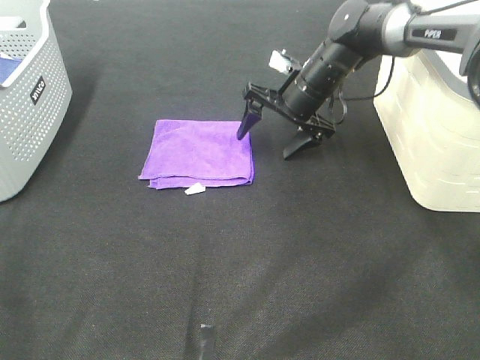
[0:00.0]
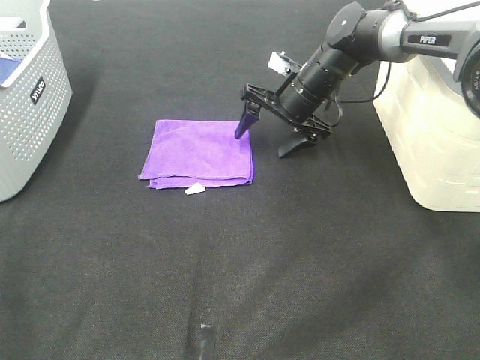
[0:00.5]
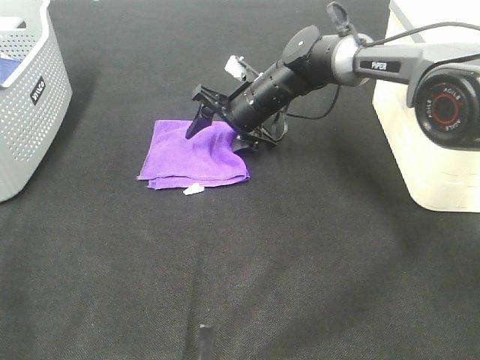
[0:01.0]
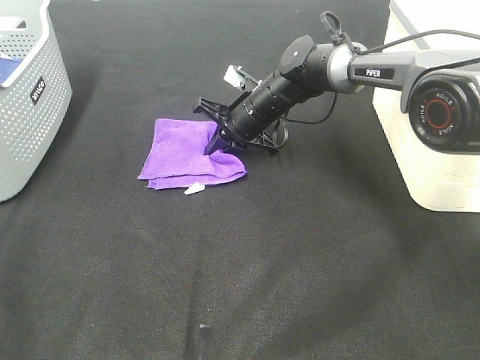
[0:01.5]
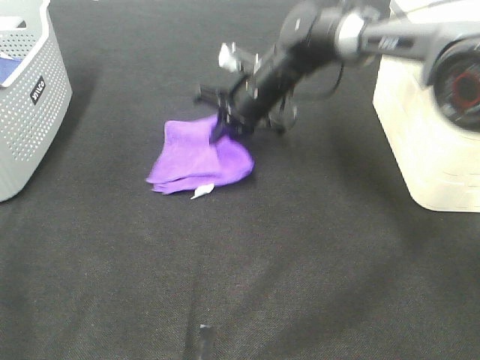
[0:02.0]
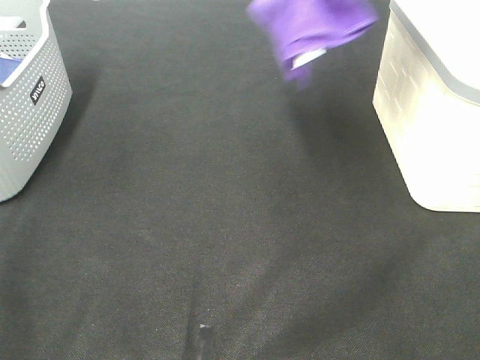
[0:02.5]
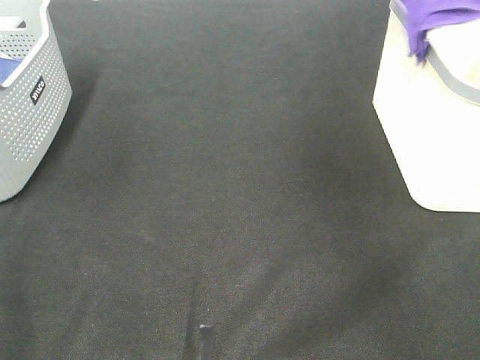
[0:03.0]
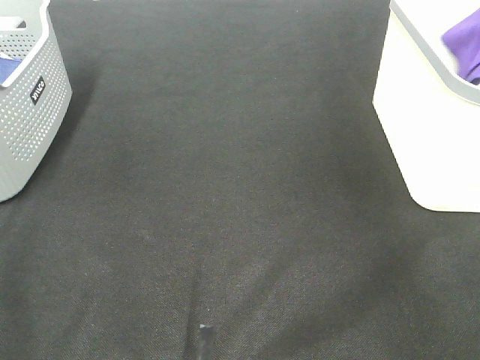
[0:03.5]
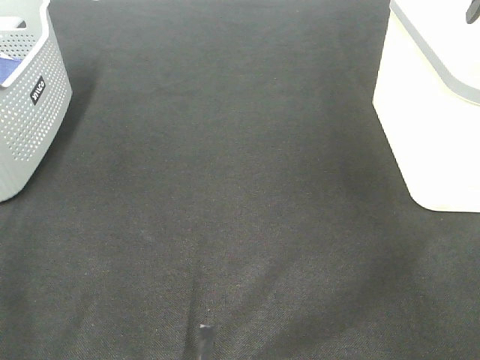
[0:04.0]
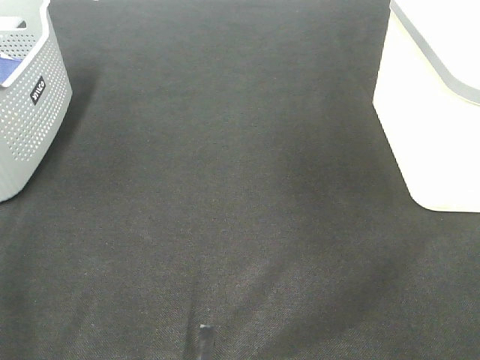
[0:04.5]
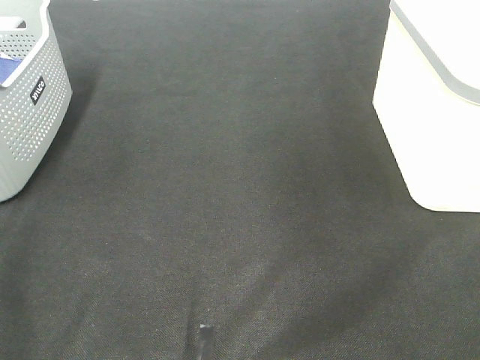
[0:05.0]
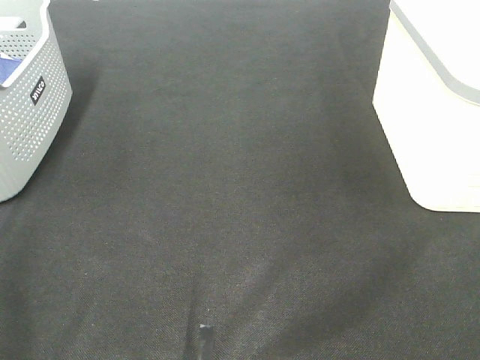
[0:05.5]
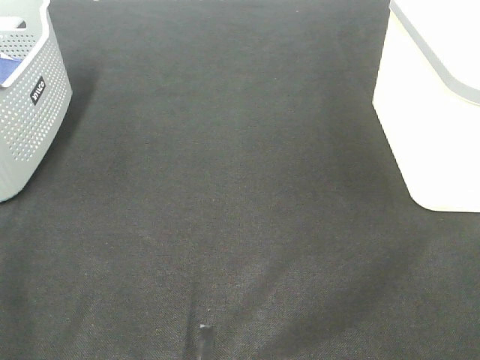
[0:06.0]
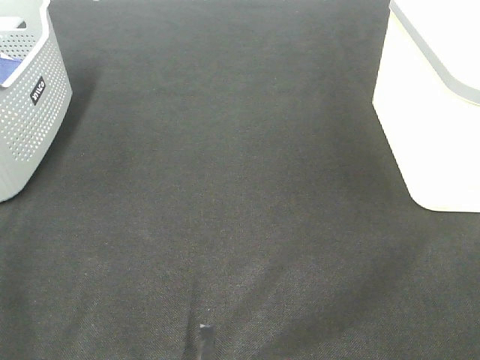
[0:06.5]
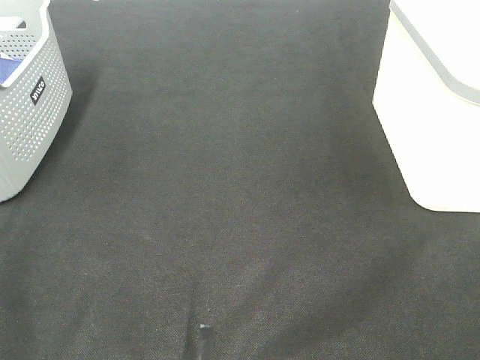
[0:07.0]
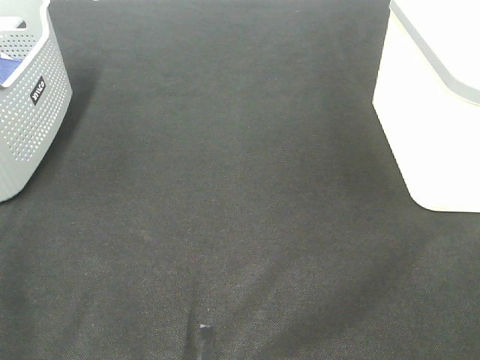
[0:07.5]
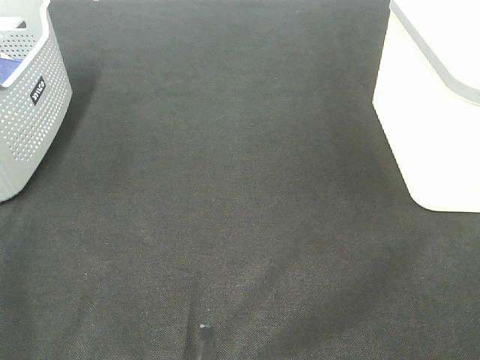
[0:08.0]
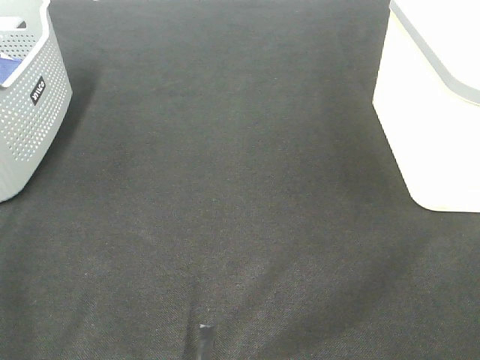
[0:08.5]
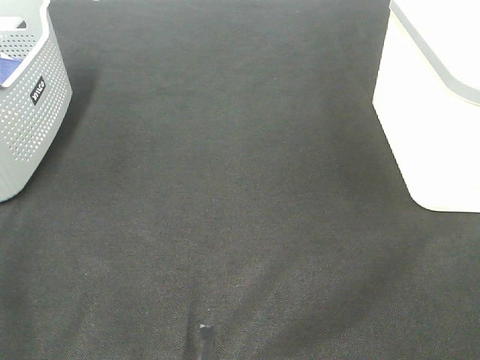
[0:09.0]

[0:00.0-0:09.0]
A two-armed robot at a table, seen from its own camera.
Step, 0:02.0 to 0:03.5: Right hand: place the purple towel in right basket.
0:00.0 to 0:02.0: The right gripper travels to the left by approximately 5 cm, and closes up.
0:02.0 to 0:04.5: The right gripper shifts about 35 cm to the right and upward, and opens its fingers.
0:07.0 to 0:09.0: Both grippers stay about where they are.

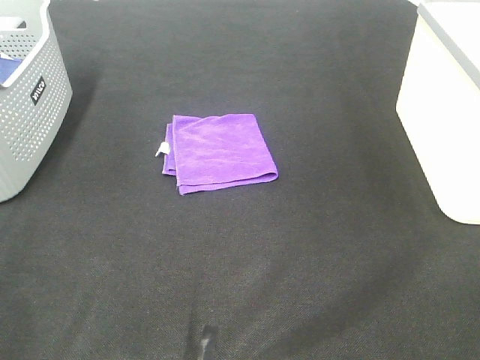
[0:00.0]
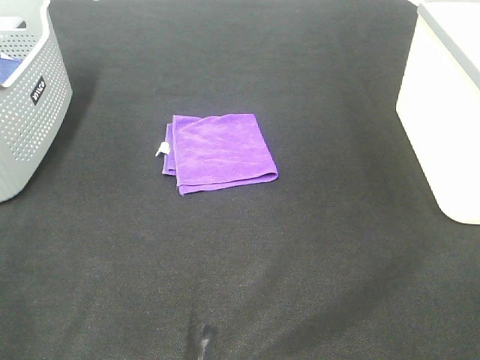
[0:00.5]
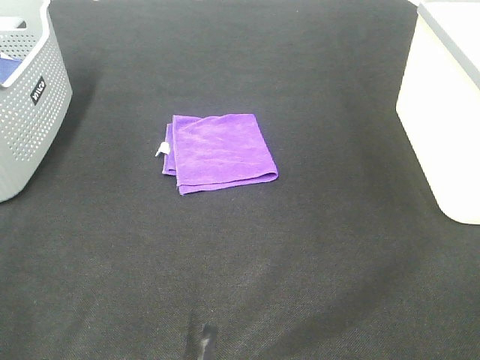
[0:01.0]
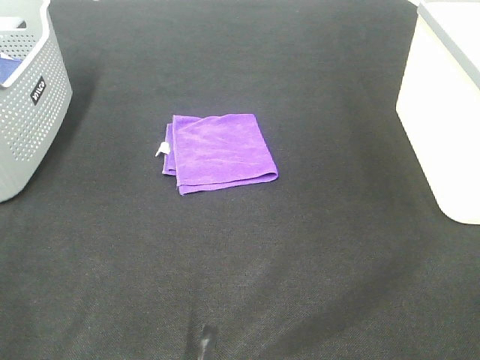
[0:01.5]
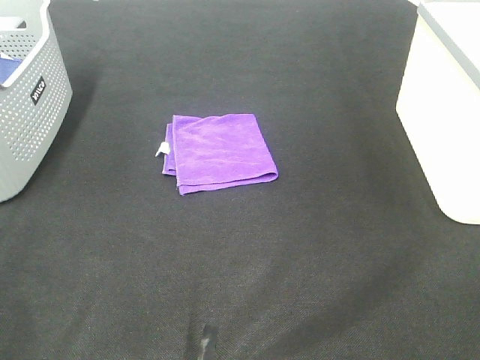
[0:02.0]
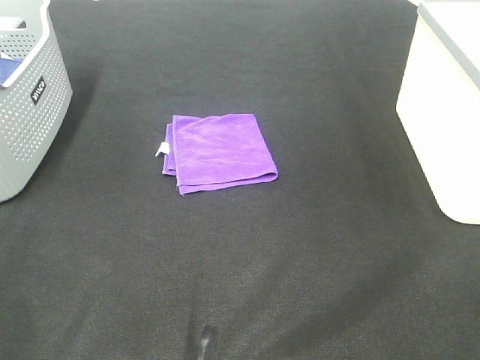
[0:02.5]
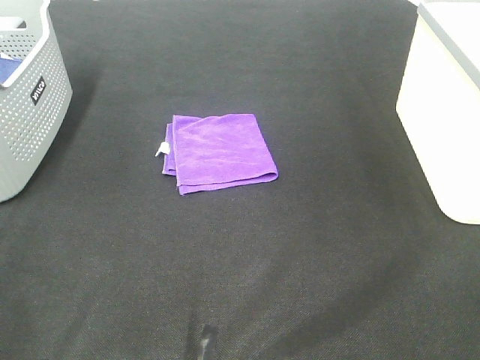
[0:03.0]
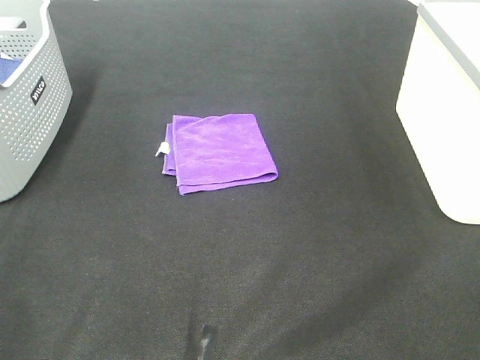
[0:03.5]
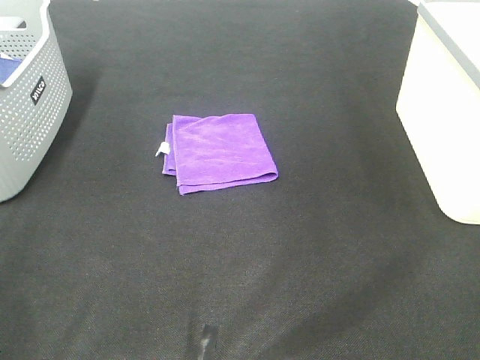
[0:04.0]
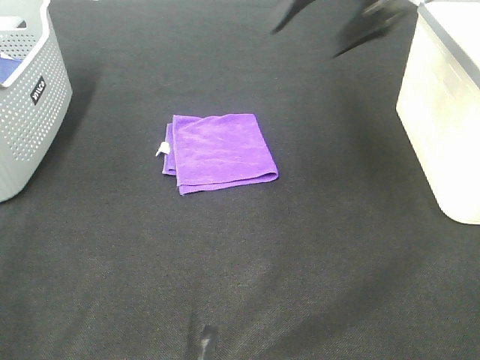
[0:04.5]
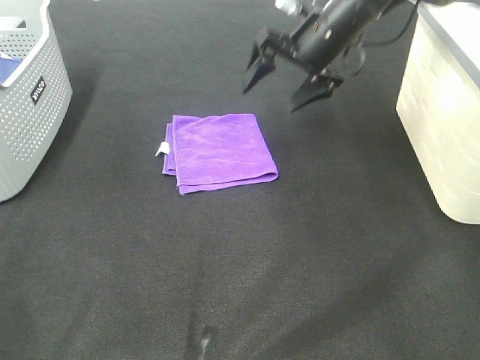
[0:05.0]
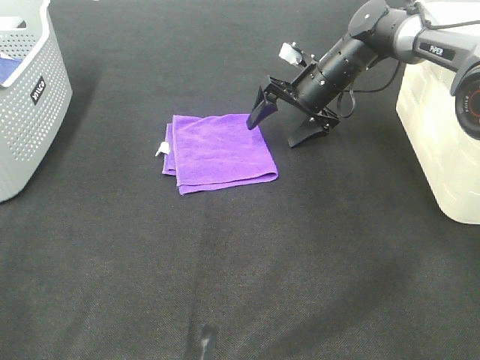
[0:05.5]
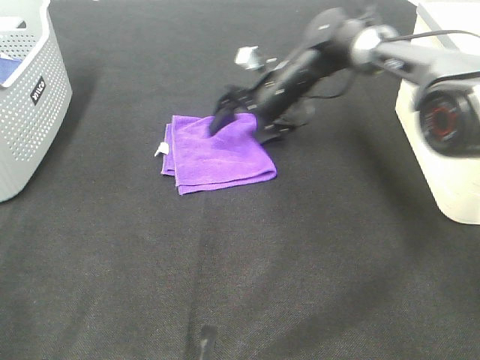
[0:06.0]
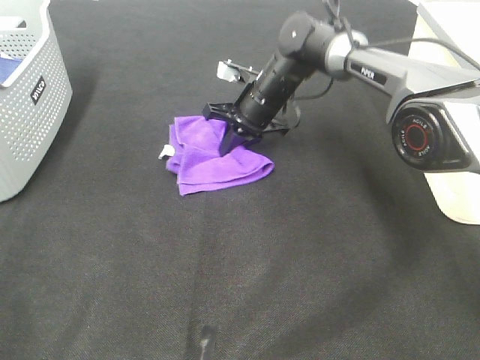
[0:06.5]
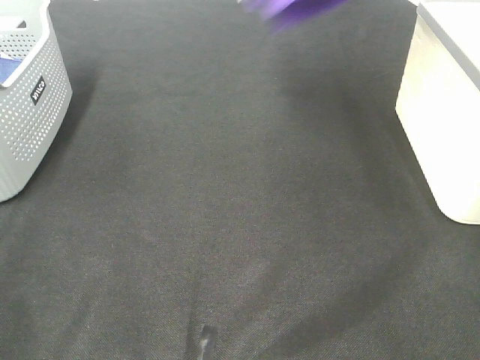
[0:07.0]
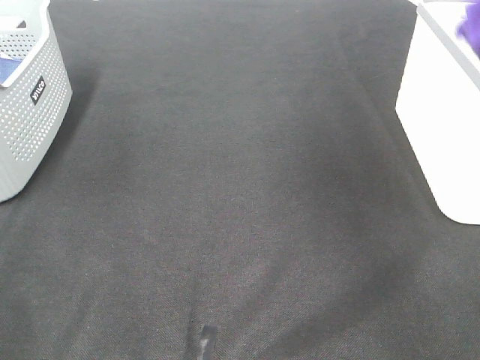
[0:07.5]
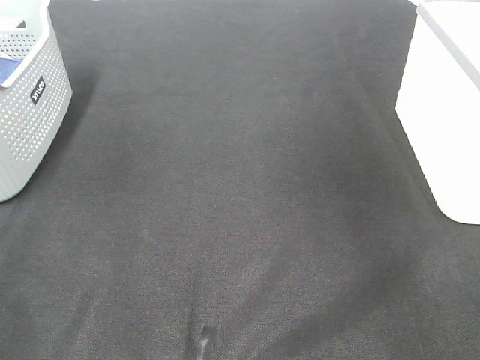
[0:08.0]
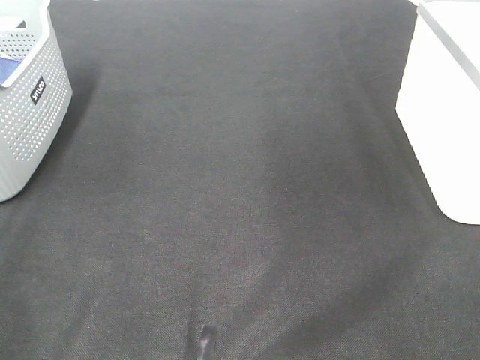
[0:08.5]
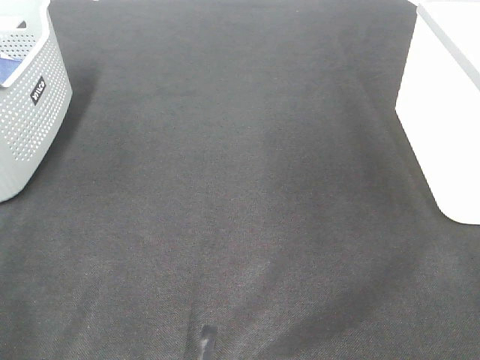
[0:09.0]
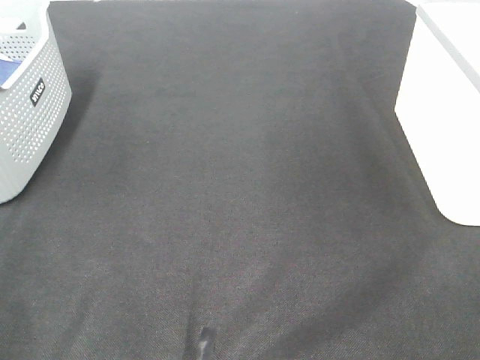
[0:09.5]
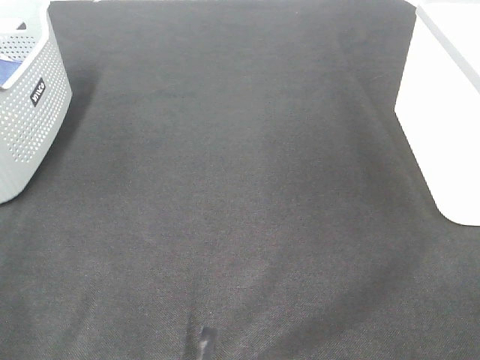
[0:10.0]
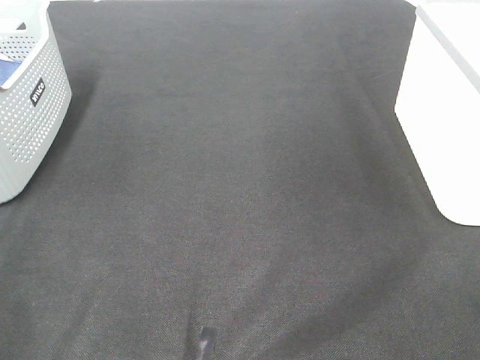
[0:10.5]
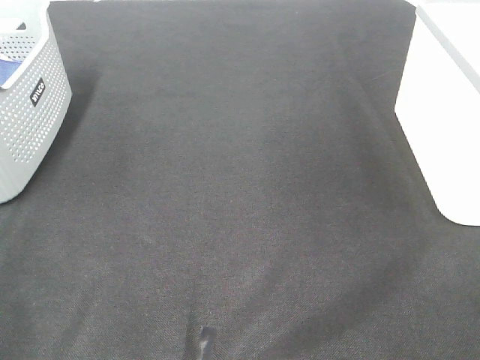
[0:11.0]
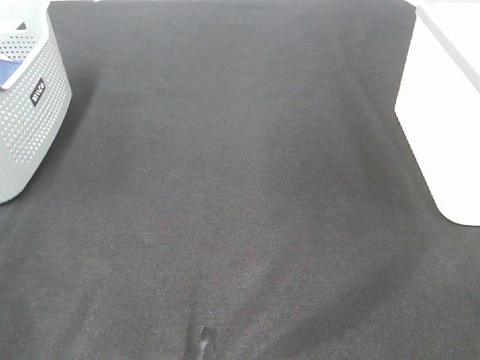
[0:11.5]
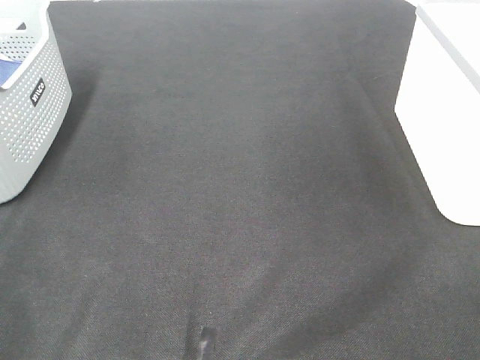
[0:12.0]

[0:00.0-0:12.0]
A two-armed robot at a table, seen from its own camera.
Step, 0:00.0 to 0:06.0: Right hand: grab the folded purple towel.
Step, 0:06.5 to 0:07.5: Right hand: place the purple towel in right basket.
0:00.0 to 0:02.0: Both grippers stay about where they are.
0:04.0 to 0:06.0: The right gripper heads downward, forward and to the left, covering roughly 50 cm.
0:06.0 to 0:08.0: The right gripper moves to the right and upward, about 40 cm, and closes and opens again.
0:10.0 to 0:12.0: Both grippers stay about where they are.
